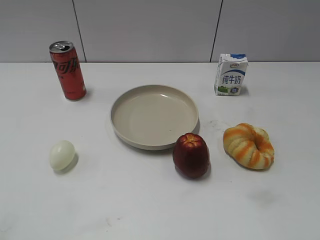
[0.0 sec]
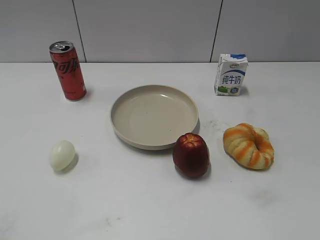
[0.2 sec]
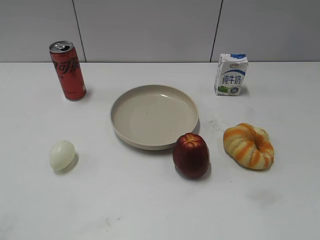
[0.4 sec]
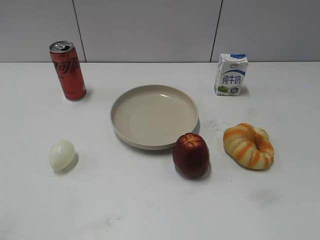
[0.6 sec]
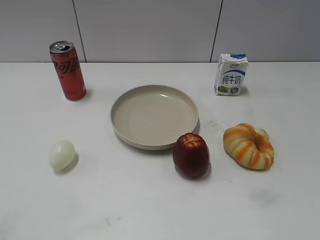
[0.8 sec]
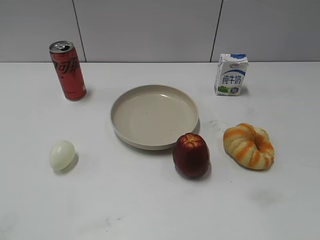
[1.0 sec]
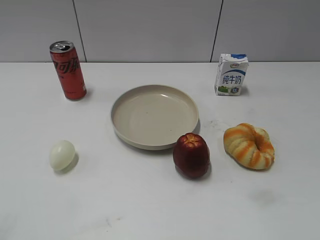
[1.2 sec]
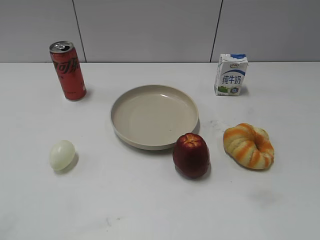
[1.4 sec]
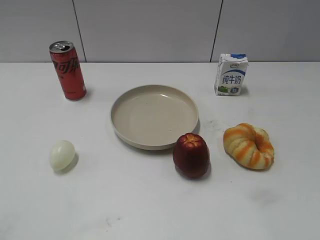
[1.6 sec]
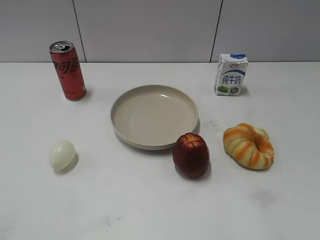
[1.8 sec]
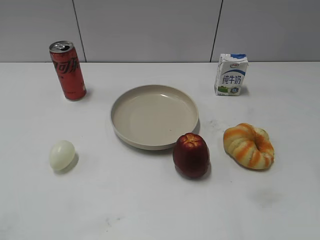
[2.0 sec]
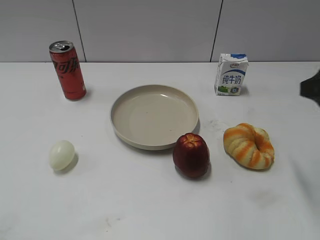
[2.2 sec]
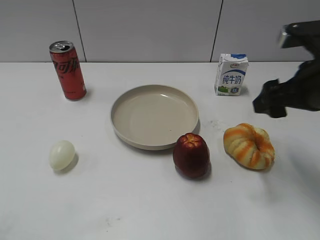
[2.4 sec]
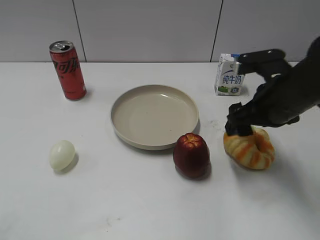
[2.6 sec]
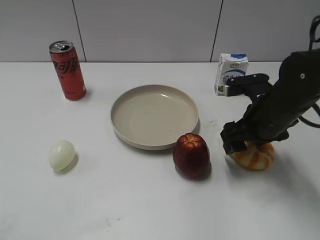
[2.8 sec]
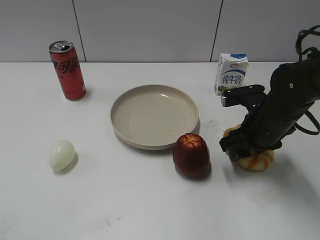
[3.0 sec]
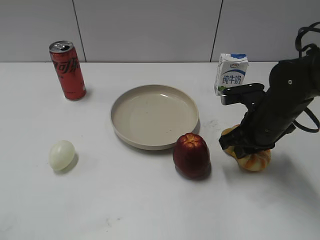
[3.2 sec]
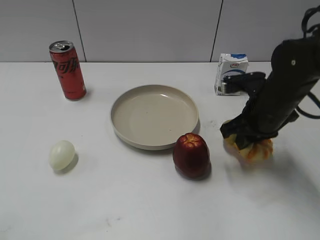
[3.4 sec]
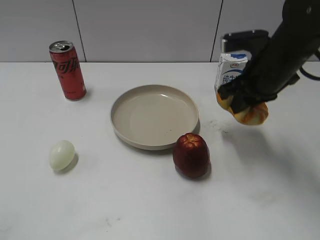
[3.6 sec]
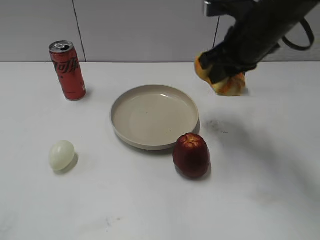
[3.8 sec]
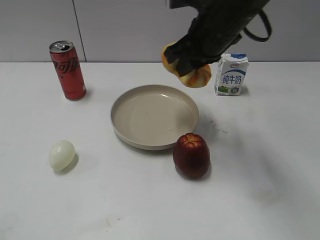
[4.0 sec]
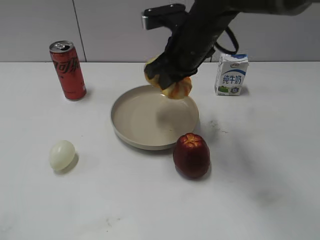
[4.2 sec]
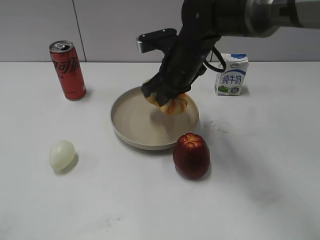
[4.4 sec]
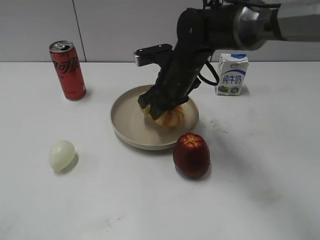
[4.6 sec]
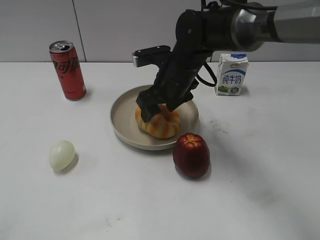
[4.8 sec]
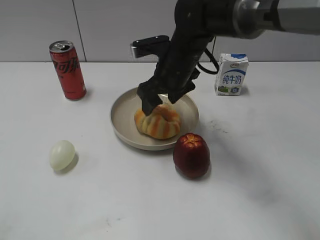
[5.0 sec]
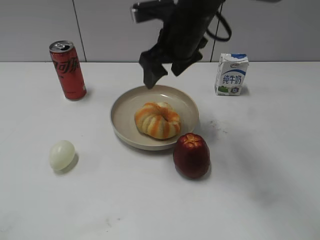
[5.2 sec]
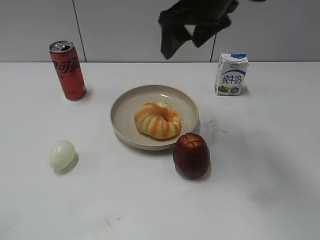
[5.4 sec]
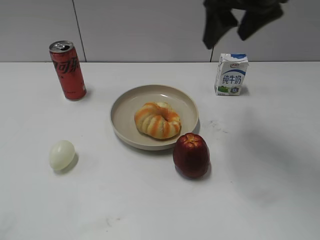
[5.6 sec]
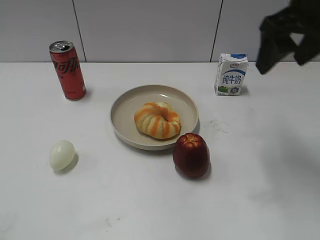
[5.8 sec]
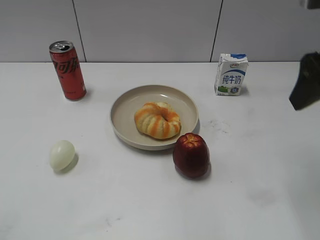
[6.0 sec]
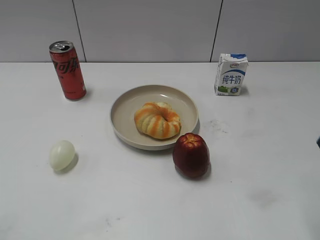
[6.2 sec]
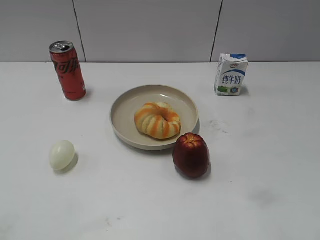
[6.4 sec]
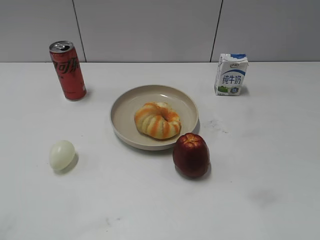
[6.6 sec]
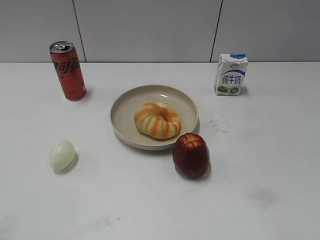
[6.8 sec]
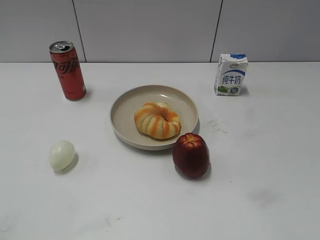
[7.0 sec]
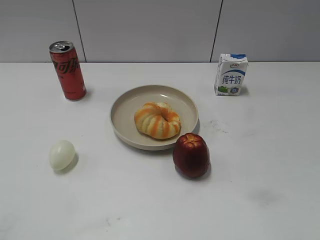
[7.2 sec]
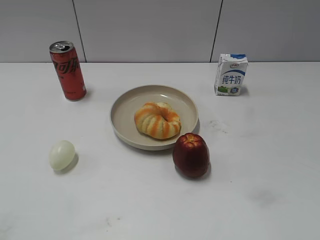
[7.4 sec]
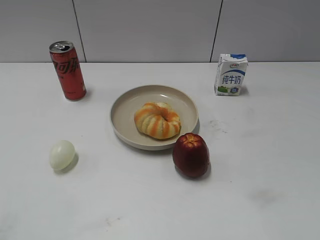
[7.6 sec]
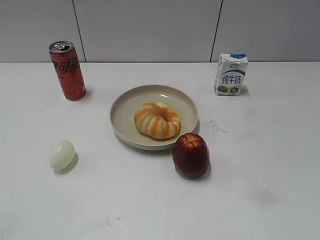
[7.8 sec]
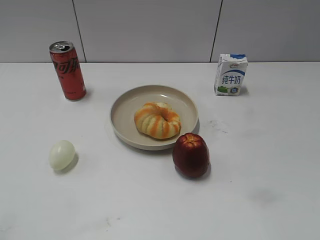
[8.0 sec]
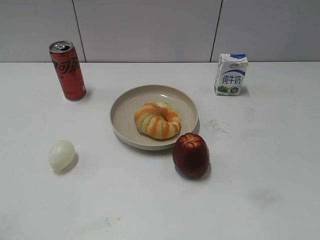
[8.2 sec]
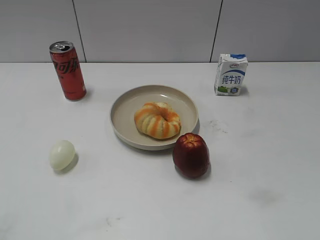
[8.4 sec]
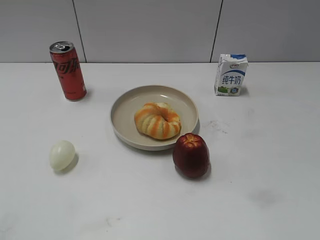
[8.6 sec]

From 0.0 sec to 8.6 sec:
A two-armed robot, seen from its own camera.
Step, from 1.0 sec to 3.0 sec: Grasp the round bread with right gripper.
Step, from 3.2 sec to 5.0 sec: Place the round bread on the plate with right gripper.
From 1.4 sec to 2.8 sec: The right gripper travels forward, downward and to the left by roughly 35 cm.
From 2.8 sec to 4.4 sec: The right gripper moves to the left and forward, approximately 15 cm, and closes.
From 4.4 sec to 5.8 sec: The right gripper heads to the right, upward and backward, covering roughly 25 cm, and opens its fingers.
From 5.8 sec to 7.2 sec: The right gripper goes approximately 25 cm backward.
